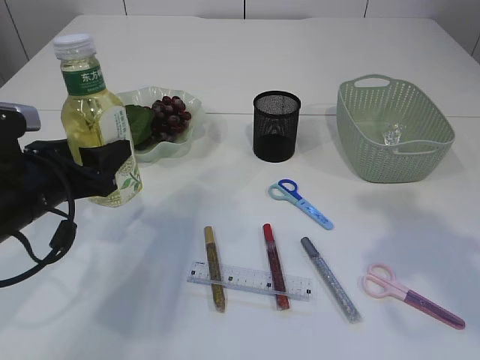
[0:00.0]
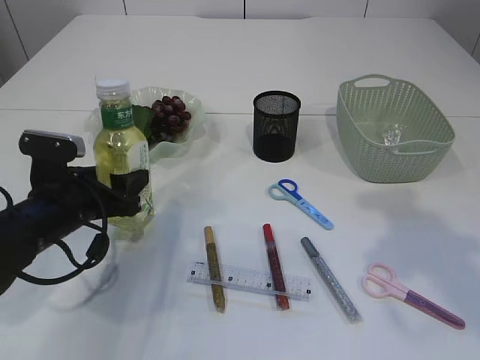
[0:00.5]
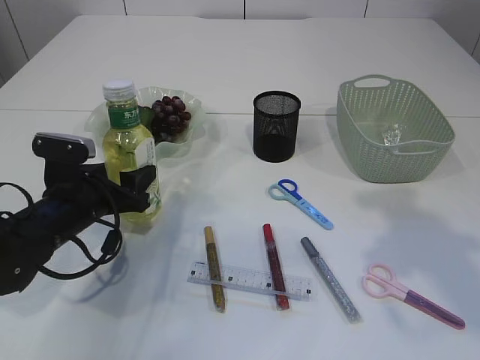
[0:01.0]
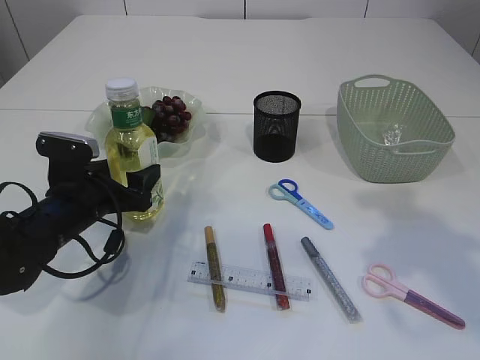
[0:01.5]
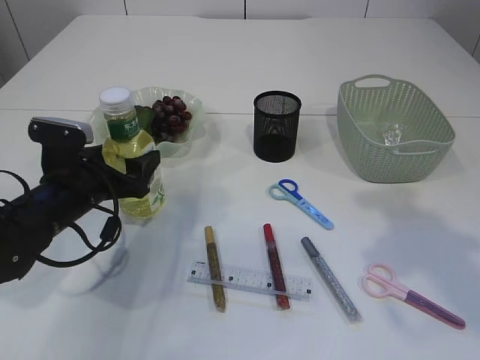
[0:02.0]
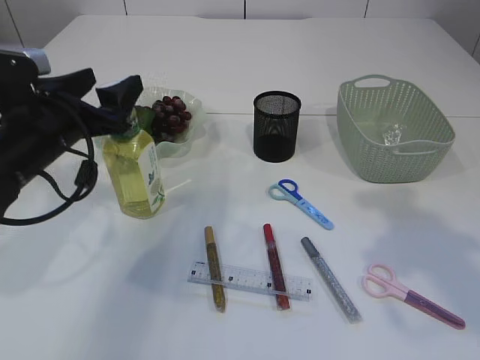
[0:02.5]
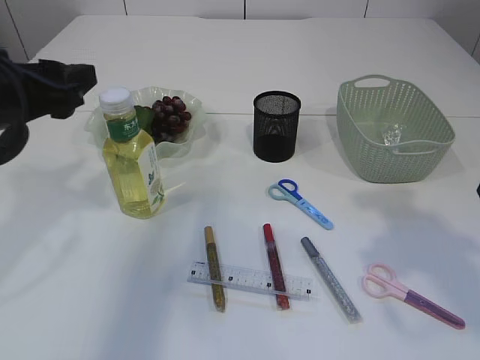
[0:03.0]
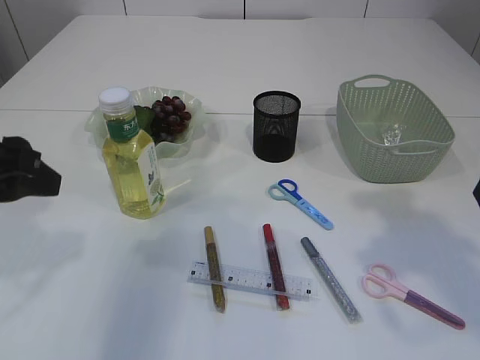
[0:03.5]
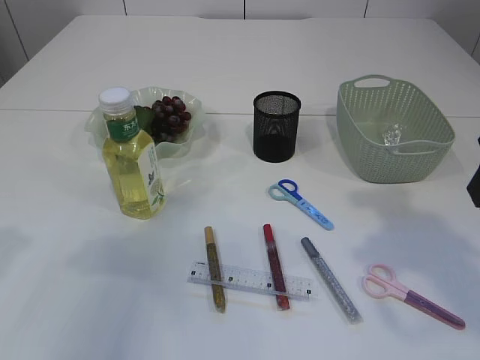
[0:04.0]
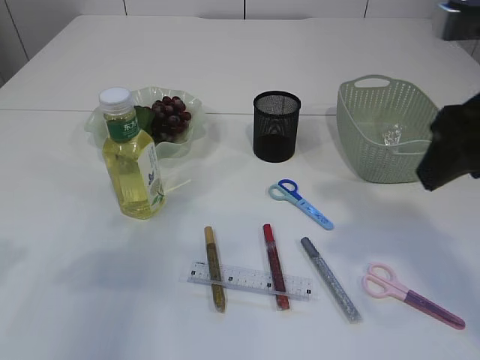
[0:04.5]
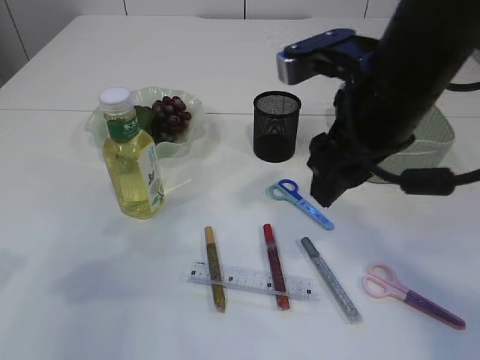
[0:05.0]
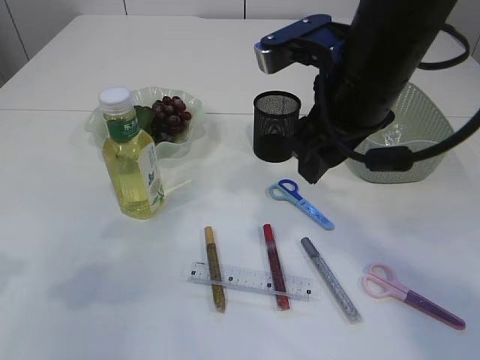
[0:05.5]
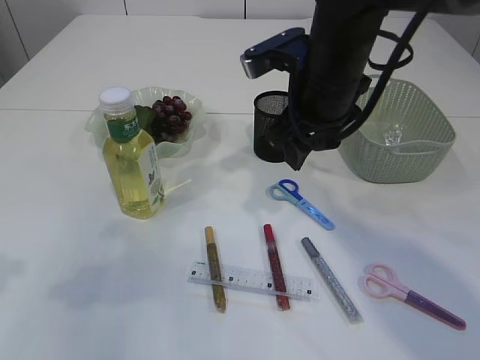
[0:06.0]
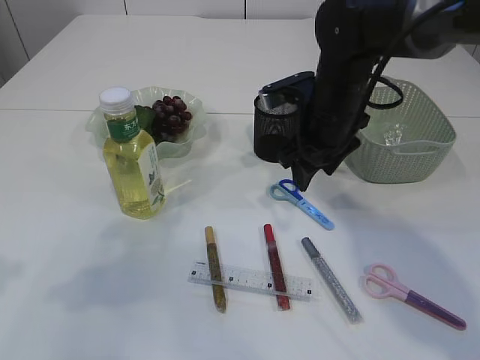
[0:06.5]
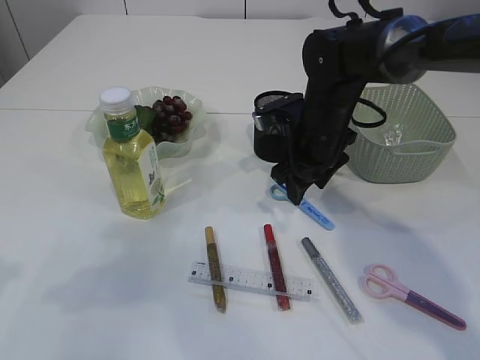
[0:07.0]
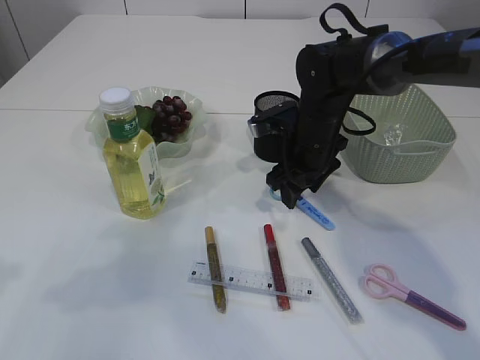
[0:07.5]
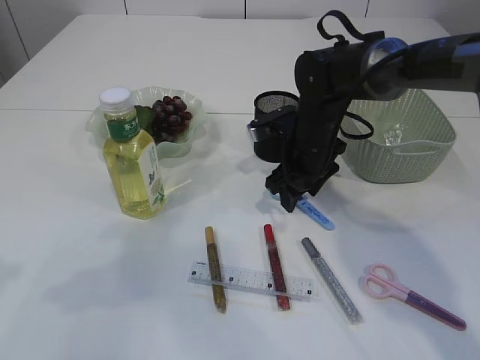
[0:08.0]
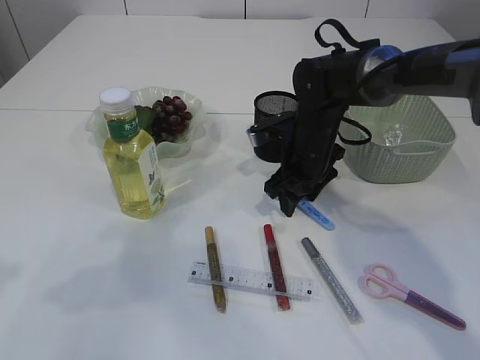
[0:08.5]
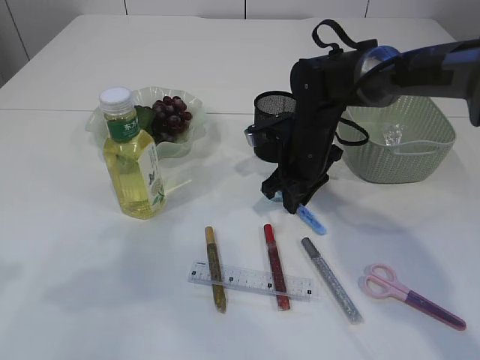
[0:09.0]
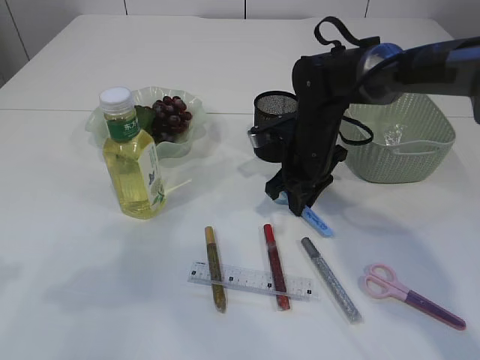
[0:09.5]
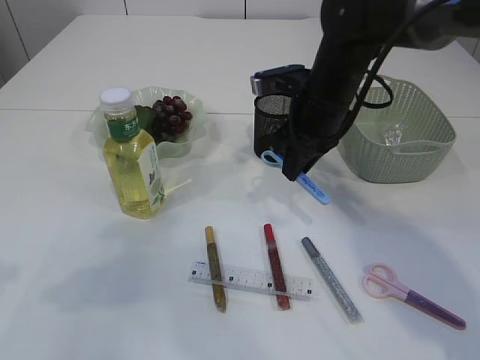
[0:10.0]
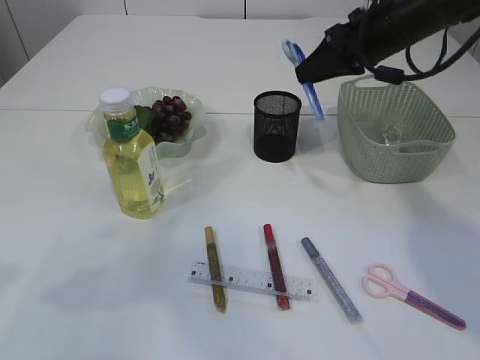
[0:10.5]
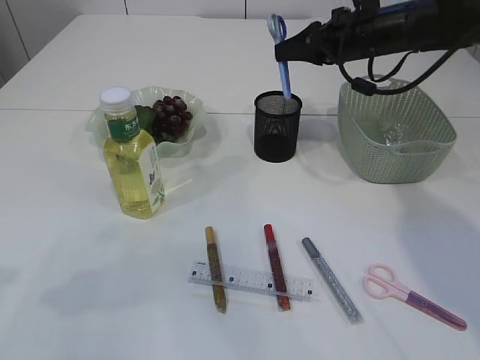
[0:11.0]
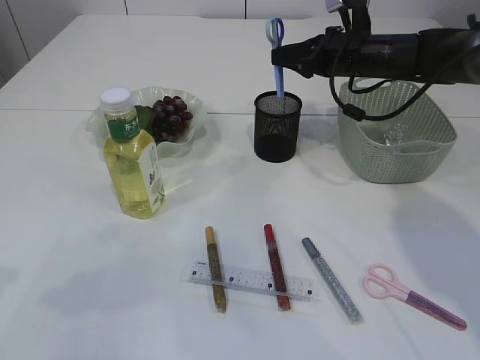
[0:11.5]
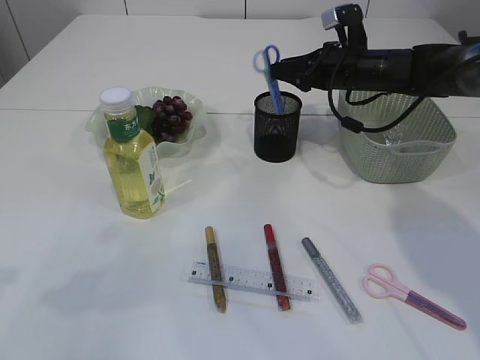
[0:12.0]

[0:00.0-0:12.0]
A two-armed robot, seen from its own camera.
Step, 0:00.0 to 0:02.5: Place the bottle.
Step, 0:03.0 to 0:09.5: pick up the blue scissors.
0:00.0 to 0:02.0: The left gripper moves downward and forward, some 10 cm.
0:02.0 to 0:04.0: The left gripper travels upward, backward and to the left by roughly 20 cm.
0:04.0 to 0:06.0: The right gripper moves forward and to the left, some 20 cm.
0:06.0 to 0:08.0: The right gripper is displaced downward and forward by approximately 15 cm.
0:08.0 to 0:10.0: The right gripper moves upward, roughly 5 cm, and closes up.
0:10.0 to 0:12.0: The right gripper goes approximately 15 cm forward and to the right.

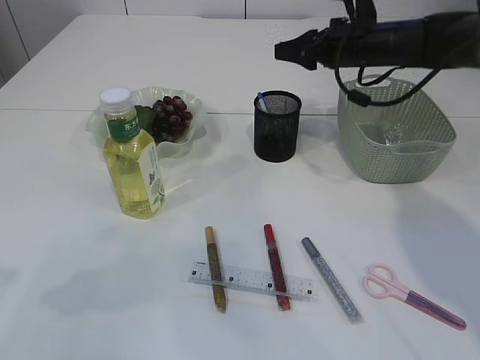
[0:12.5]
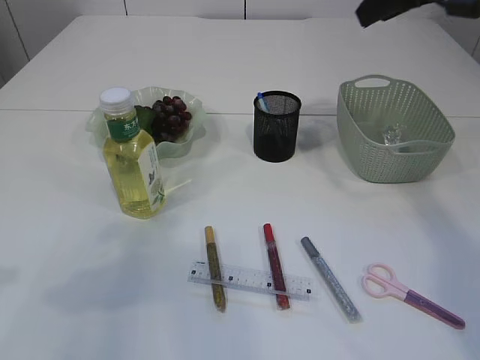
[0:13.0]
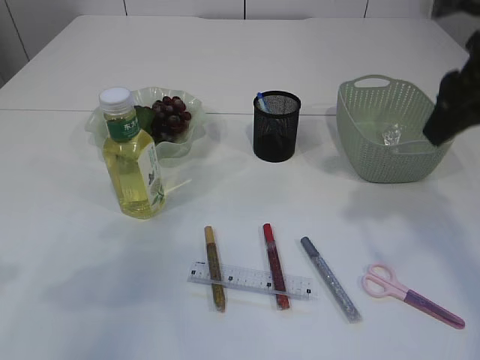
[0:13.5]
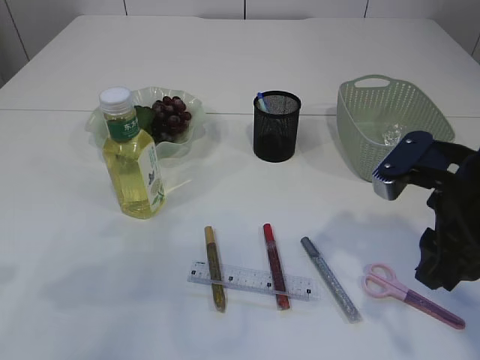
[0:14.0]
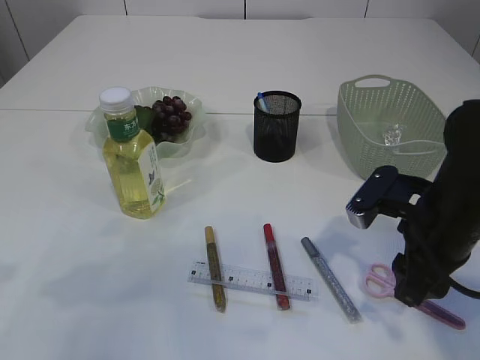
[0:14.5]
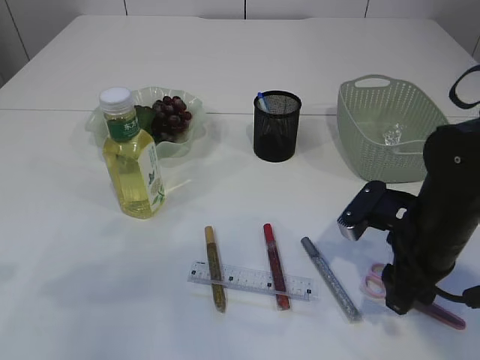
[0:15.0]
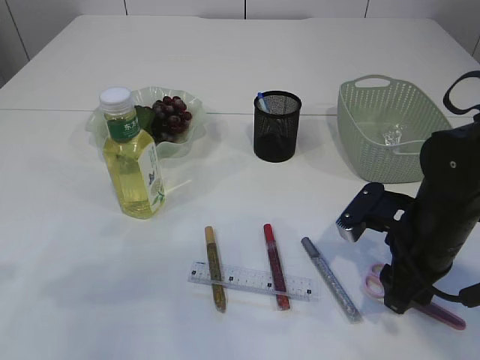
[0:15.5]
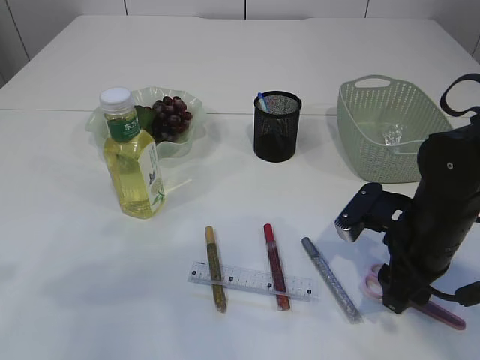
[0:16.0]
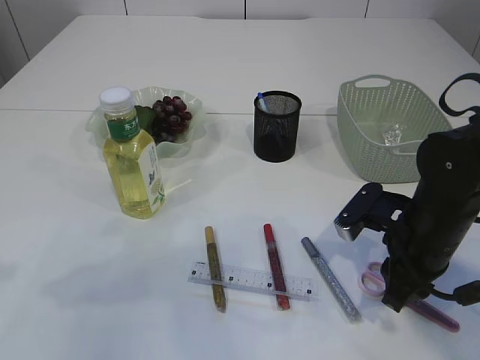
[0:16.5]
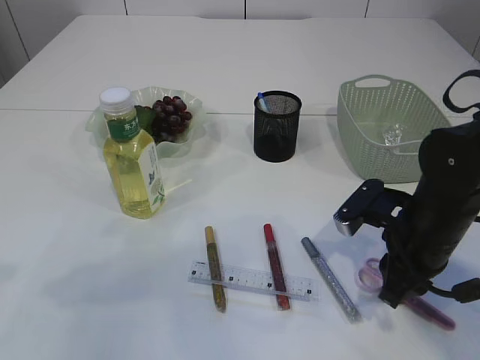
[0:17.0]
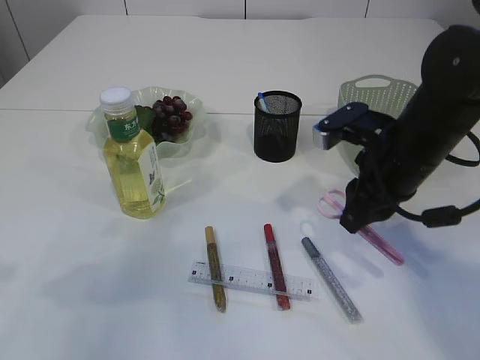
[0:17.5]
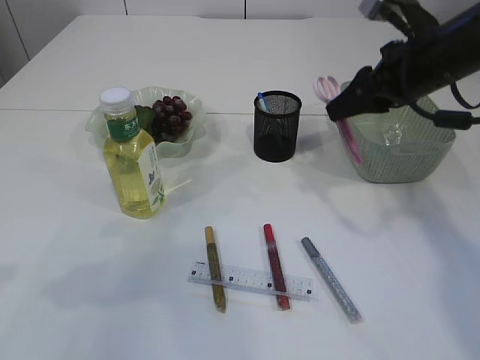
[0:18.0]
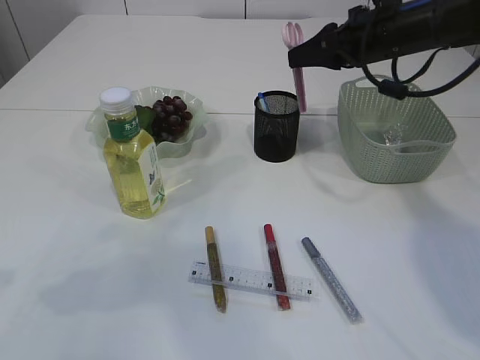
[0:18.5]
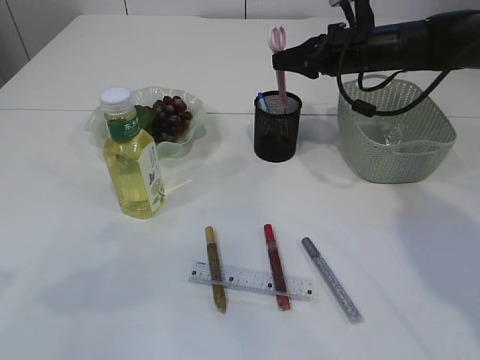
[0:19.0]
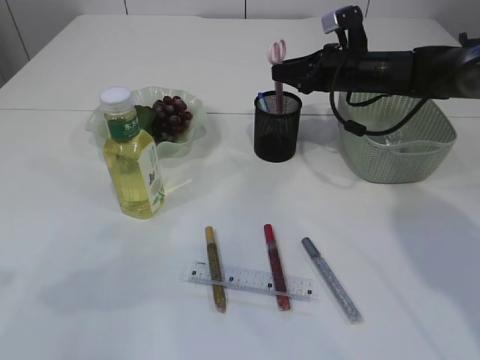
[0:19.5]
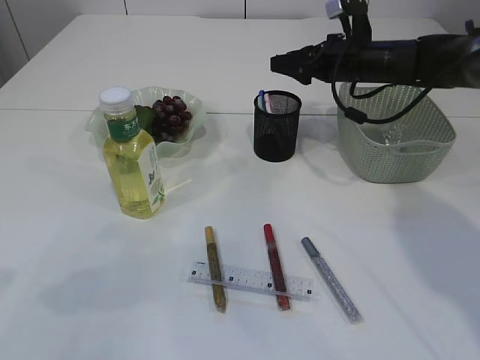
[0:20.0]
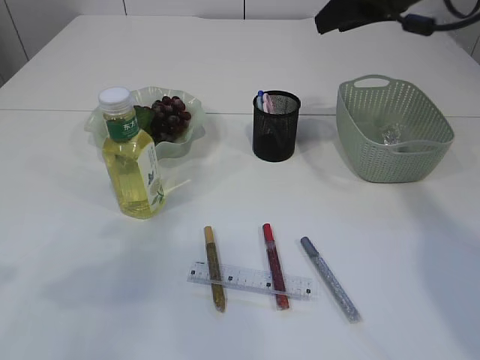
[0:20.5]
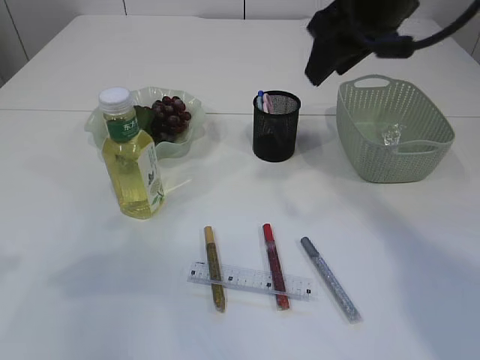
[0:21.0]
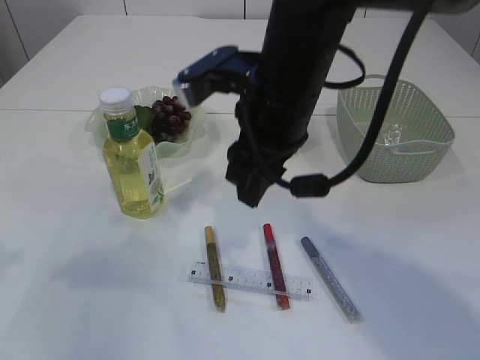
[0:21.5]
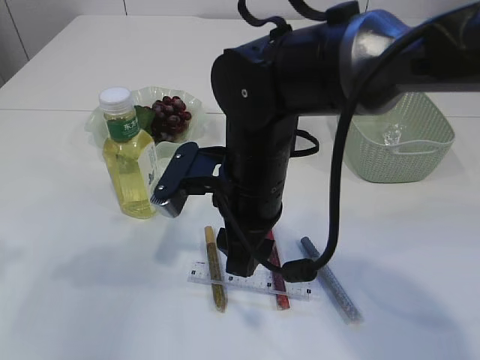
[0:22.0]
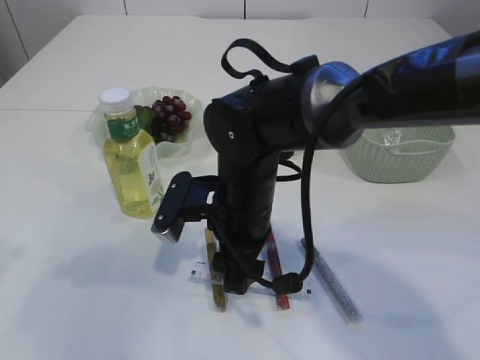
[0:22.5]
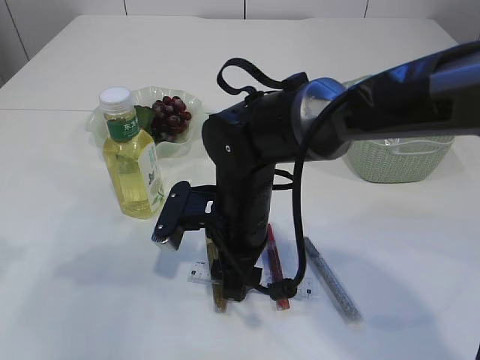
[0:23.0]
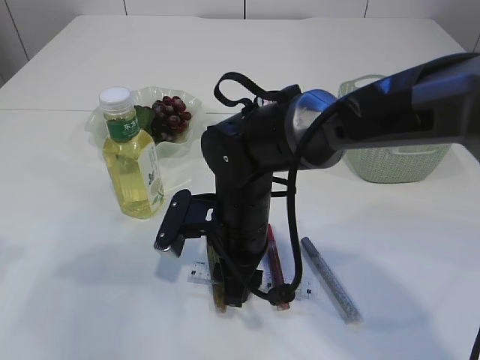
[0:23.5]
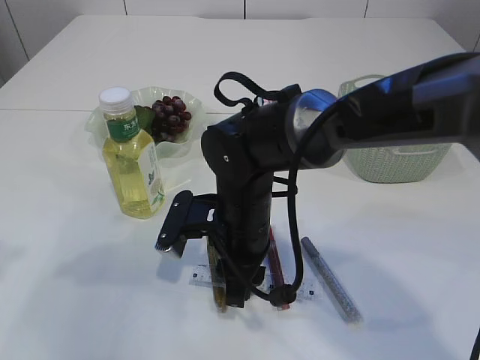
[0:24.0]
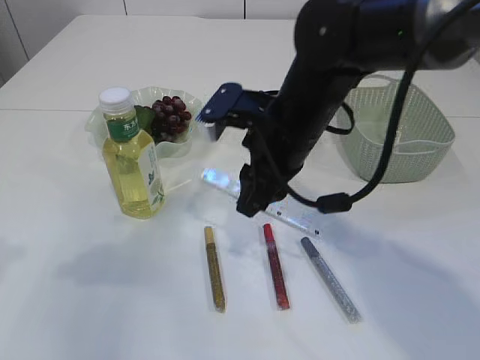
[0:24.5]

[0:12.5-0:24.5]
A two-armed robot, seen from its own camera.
Step, 0:13.0 to 0:17.0: pick up the pink scissors.
Step, 0:17.5 to 0:20.0: Place the pink scissors into the pen holder.
Step, 0:20.5 to 0:24.0: pick up the ruler.
0:12.5 to 0:14.5: The right gripper goes some 25 cm backward.
0:14.5 to 0:16.5: The right gripper closes up.
0:16.5 to 0:18.5: The right gripper is displaced forward and upward by about 20 cm.
0:18.5 to 0:20.5: The right gripper travels upward by roughly 5 cm, and opens up.
0:20.5 to 0:22.5: The right gripper moves to the left, downward and backward, roughly 30 cm.
0:22.5 to 0:24.5: The right gripper is displaced upward and to the right by some 10 cm, and closes up.

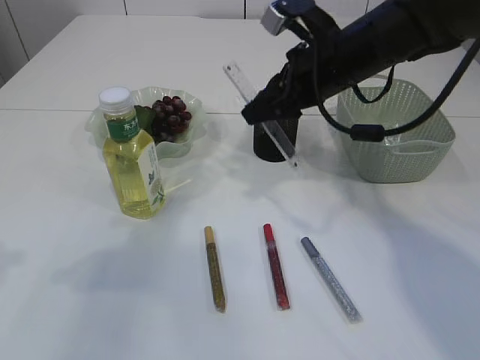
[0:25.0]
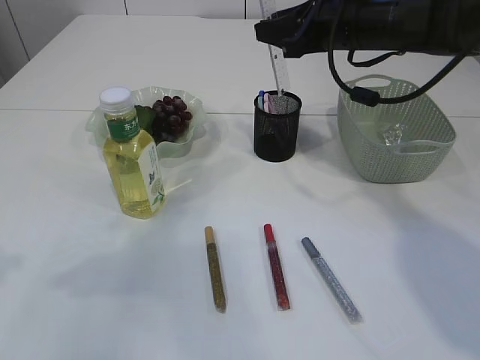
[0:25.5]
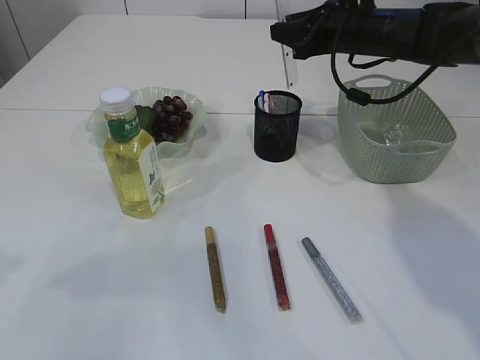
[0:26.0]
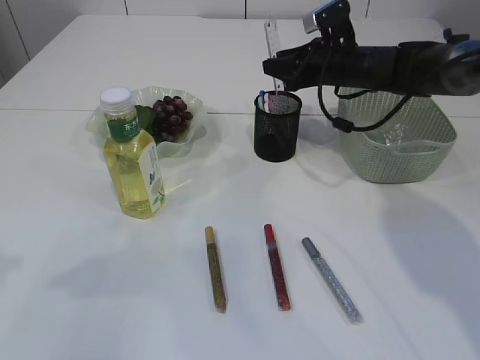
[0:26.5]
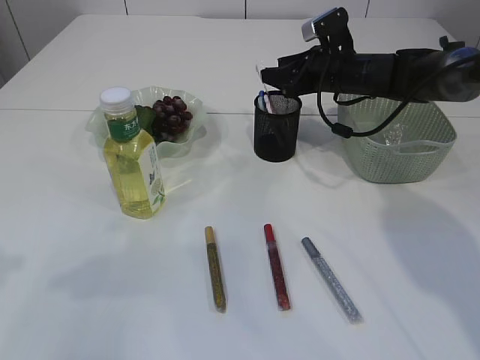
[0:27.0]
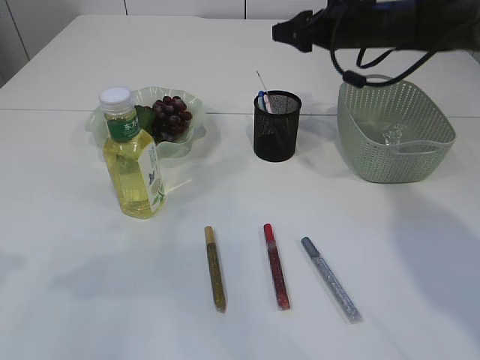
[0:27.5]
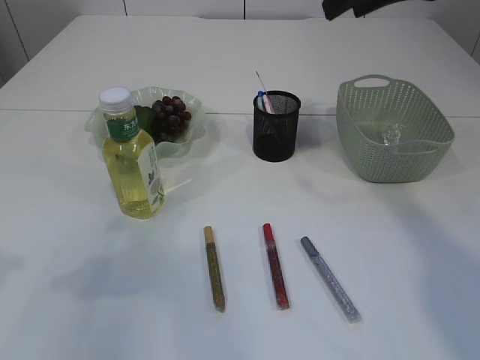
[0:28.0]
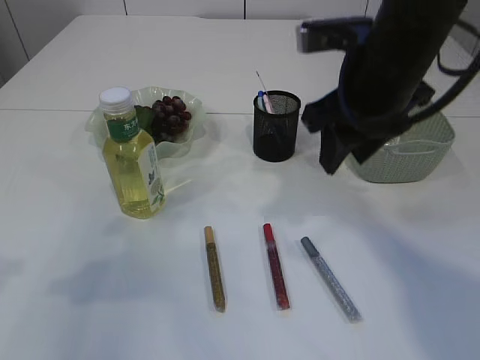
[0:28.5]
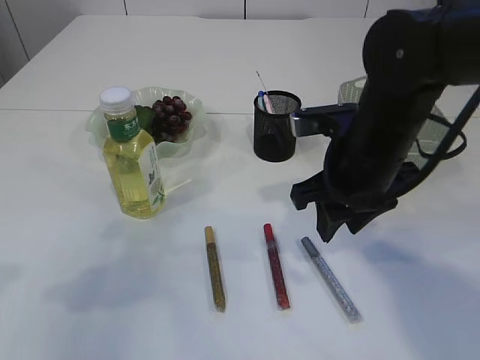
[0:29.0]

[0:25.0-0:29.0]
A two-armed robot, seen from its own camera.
Step, 0:25.0 to 0:27.0: Place the ruler into the pen holder.
0:25.0 to 0:27.0: The right gripper goes some 15 cm forward, downward and to the right.
0:27.0 to 0:29.0: The right gripper goes roughly 20 cm backward.
